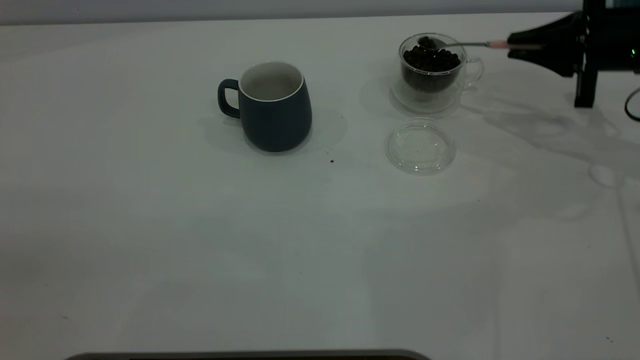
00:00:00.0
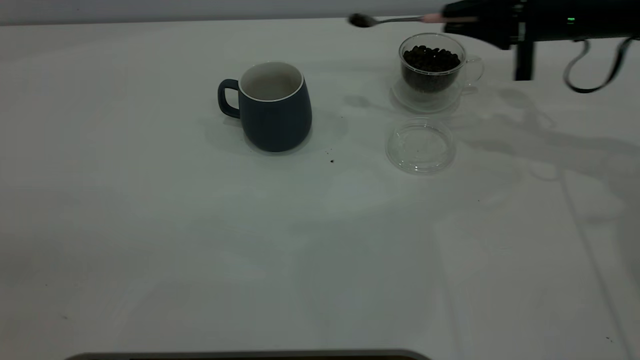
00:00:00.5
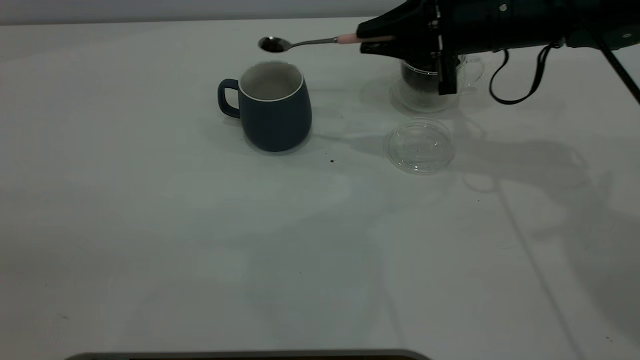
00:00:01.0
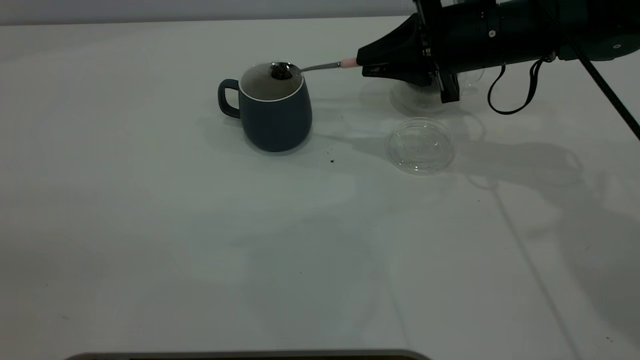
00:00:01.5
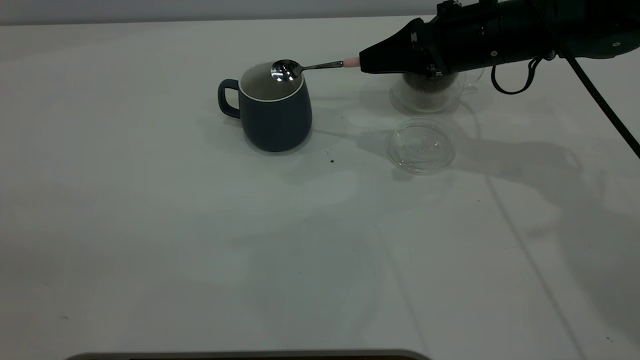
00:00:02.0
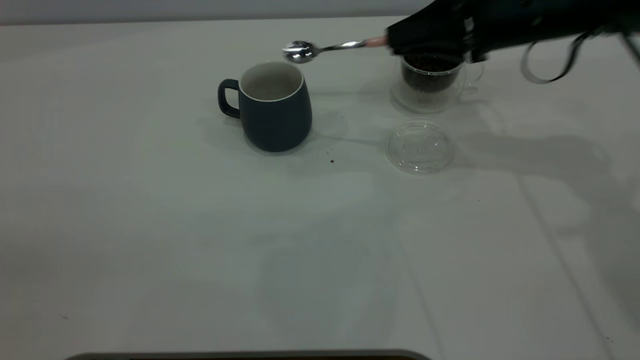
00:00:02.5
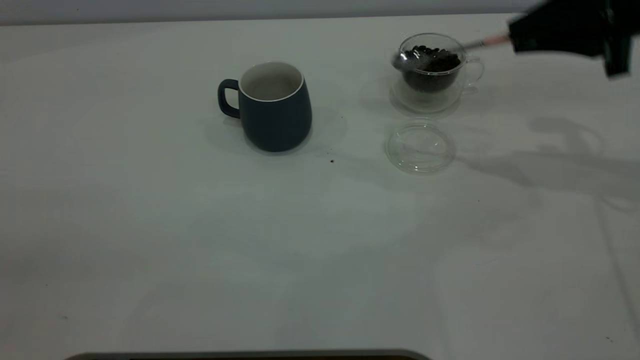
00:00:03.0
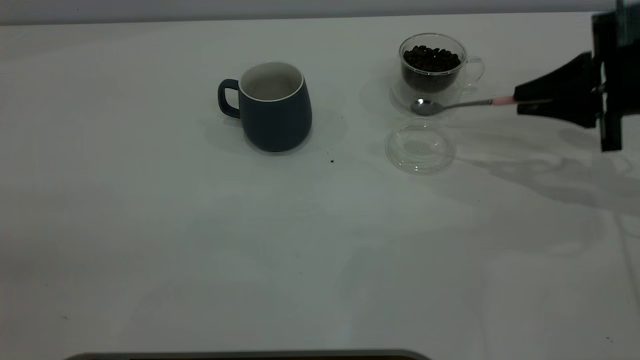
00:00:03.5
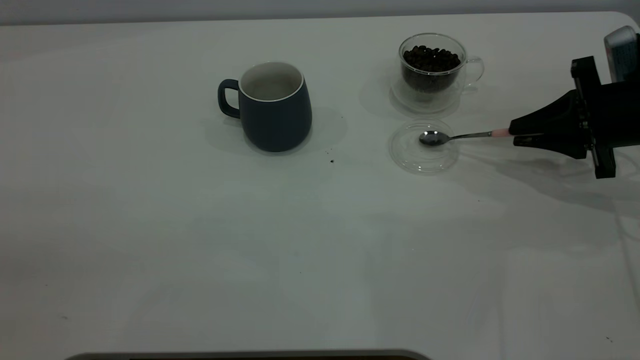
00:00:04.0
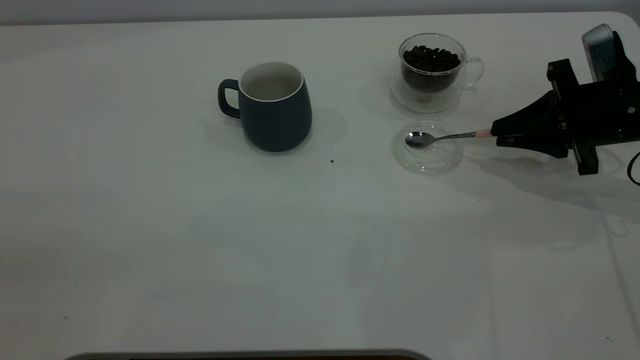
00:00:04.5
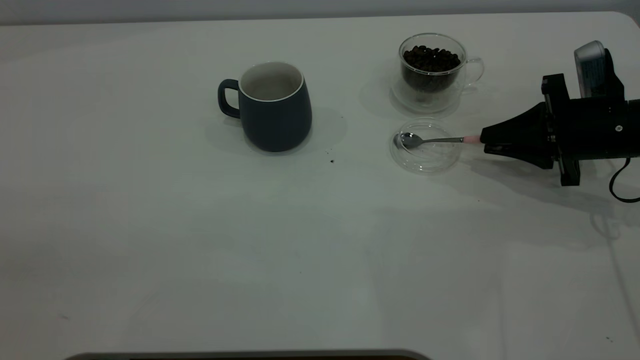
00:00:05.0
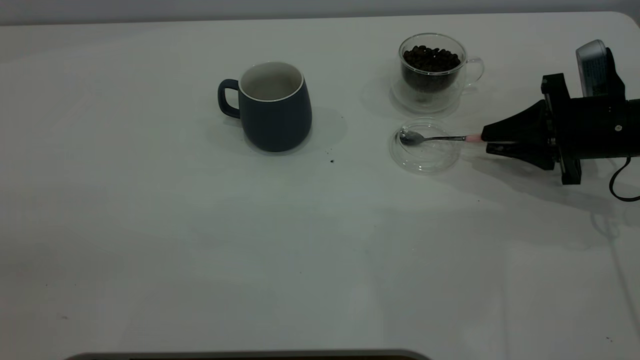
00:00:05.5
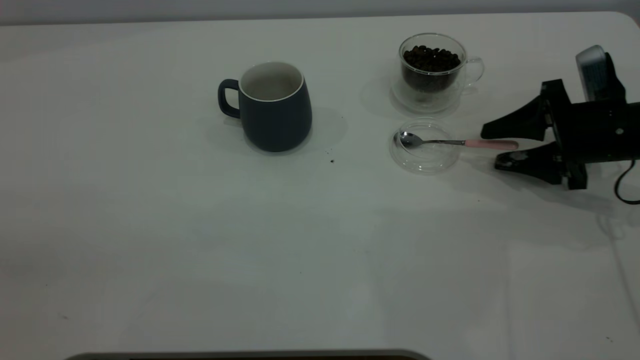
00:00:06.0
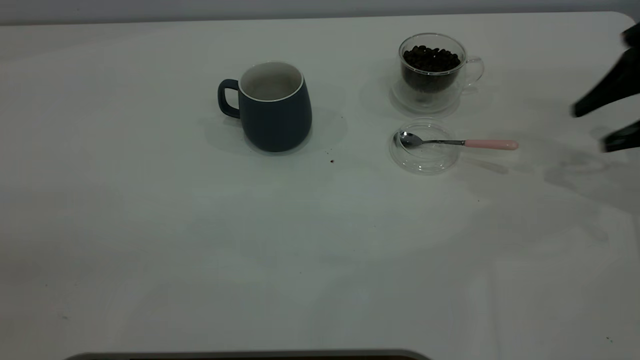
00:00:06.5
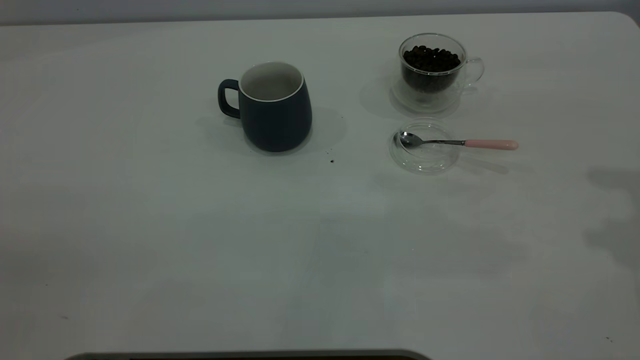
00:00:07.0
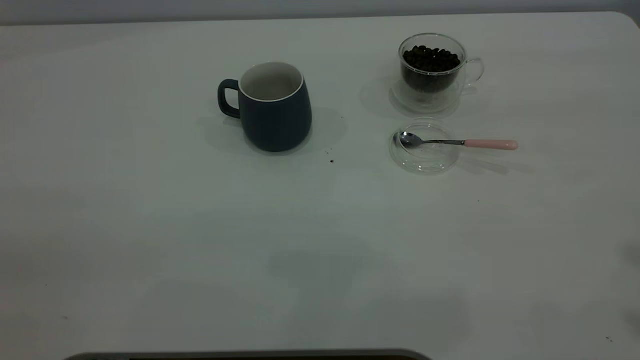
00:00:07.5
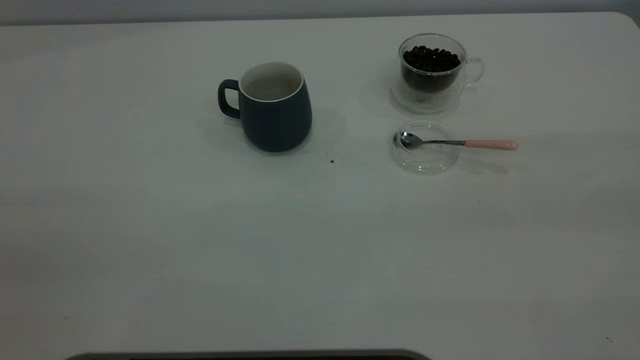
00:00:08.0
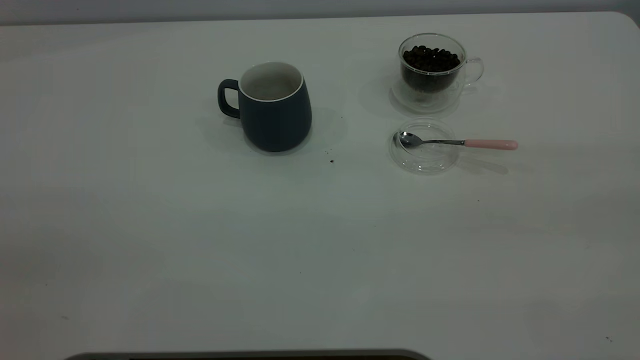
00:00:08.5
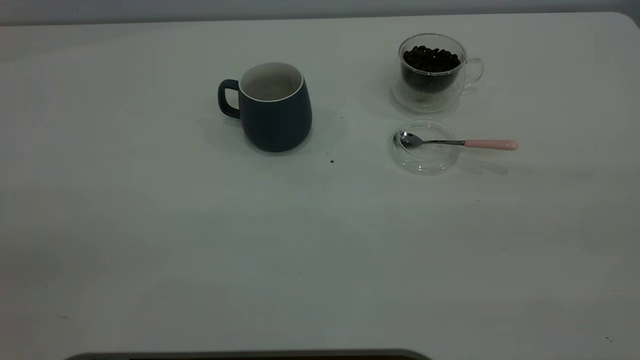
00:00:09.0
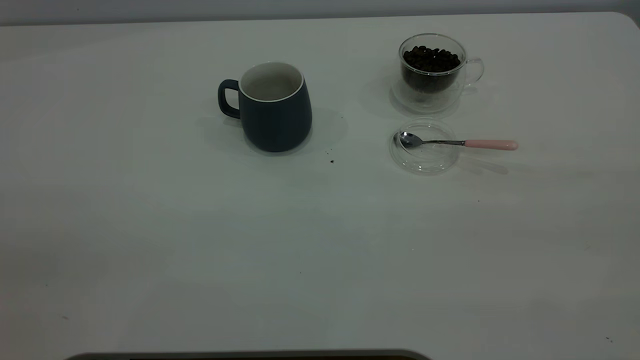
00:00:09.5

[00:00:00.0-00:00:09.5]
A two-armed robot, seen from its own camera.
Task of the whole recording: the left gripper place the grey cup in the center of the table, the right gripper take the pink spoon from the cup lid and scoop out the coffee beans from the coffee cup and put them into the grey cup, the right gripper put the spoon back into the cup lid.
Step, 00:00:00.0 to 00:00:02.0: Scoop a spoonful of beans into the cup.
Step, 00:00:02.5 to 00:00:06.0: Place the spoon back in its original place.
00:00:00.0 to 00:00:02.0: The right gripper is displaced to the left by some 15 cm.
00:00:02.0 to 00:00:04.0: The right gripper shifts about 15 cm to the right and backward.
00:00:04.0 to 00:00:05.5: The grippers stay close to where they were, moving slightly.
00:00:05.5 to 00:00:07.5: The right gripper travels upward and backward by about 40 cm, and opens its fingers.
